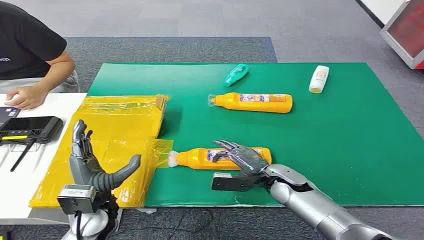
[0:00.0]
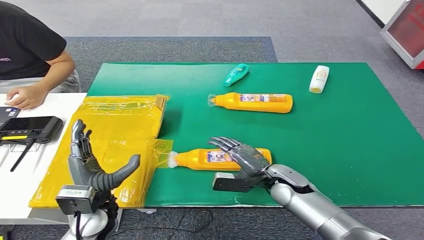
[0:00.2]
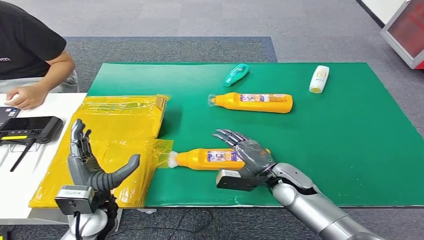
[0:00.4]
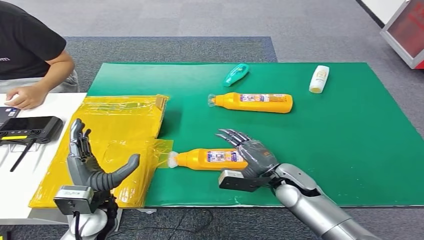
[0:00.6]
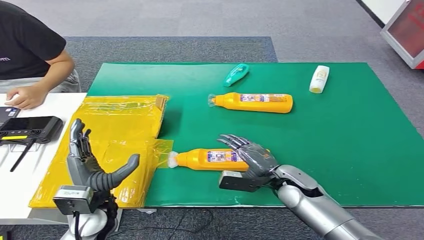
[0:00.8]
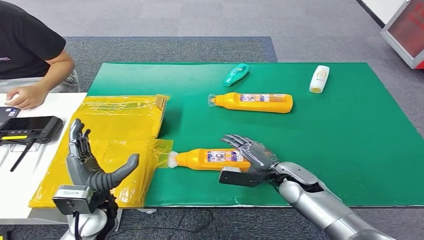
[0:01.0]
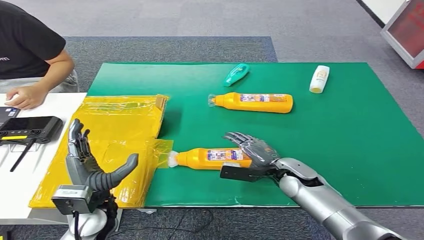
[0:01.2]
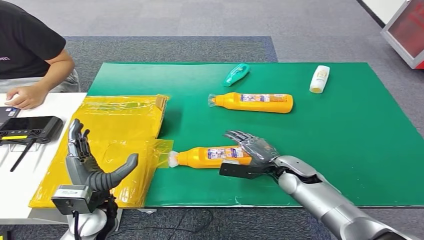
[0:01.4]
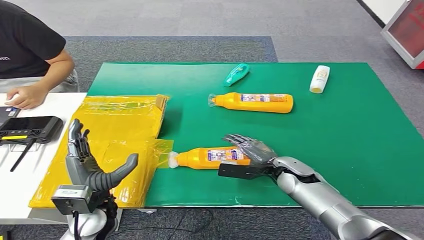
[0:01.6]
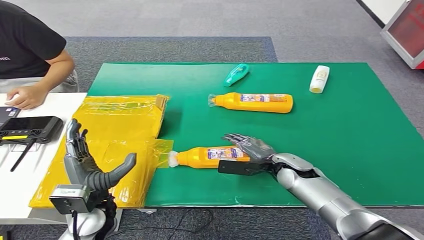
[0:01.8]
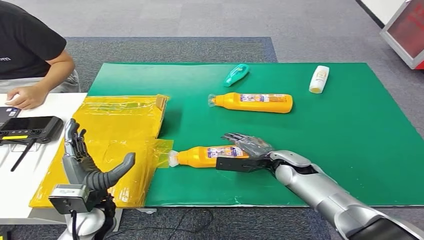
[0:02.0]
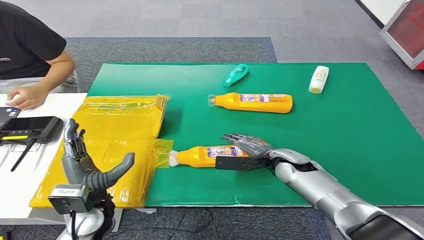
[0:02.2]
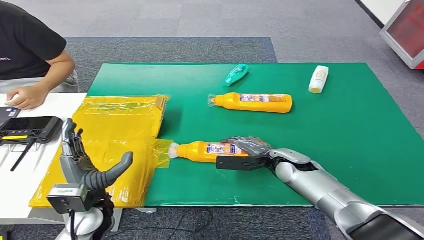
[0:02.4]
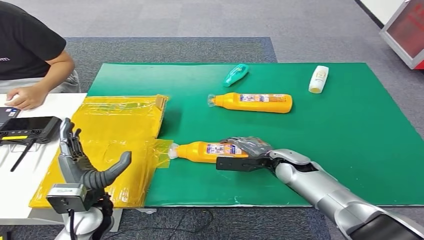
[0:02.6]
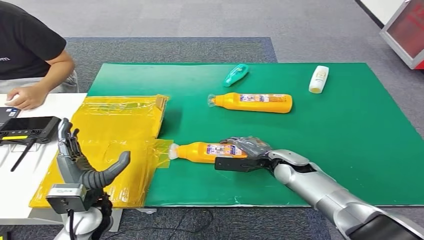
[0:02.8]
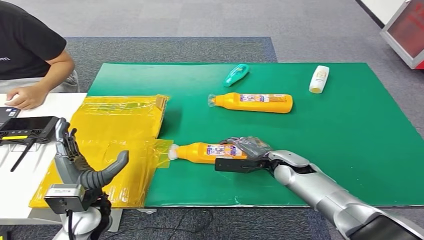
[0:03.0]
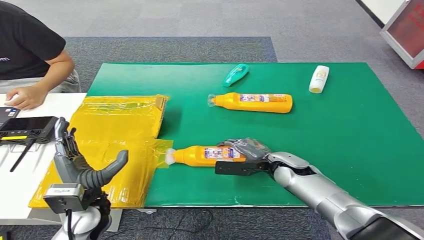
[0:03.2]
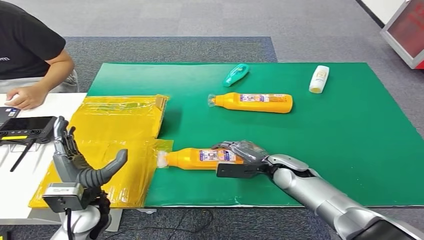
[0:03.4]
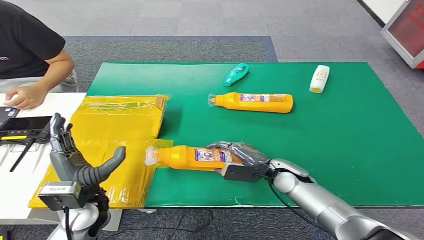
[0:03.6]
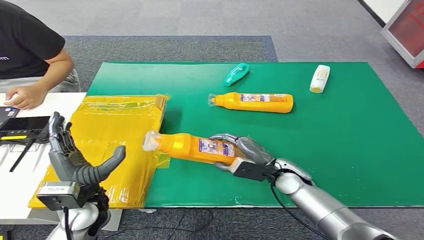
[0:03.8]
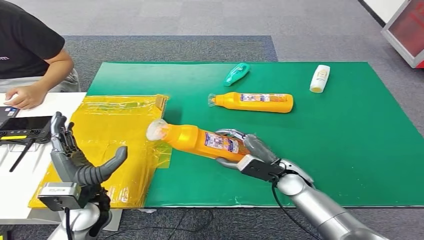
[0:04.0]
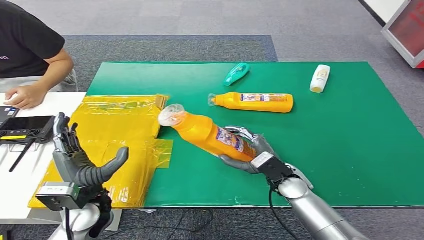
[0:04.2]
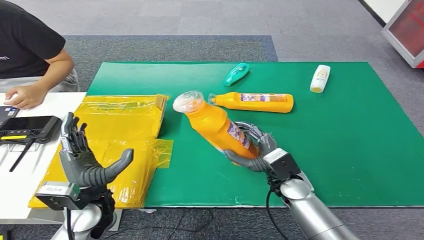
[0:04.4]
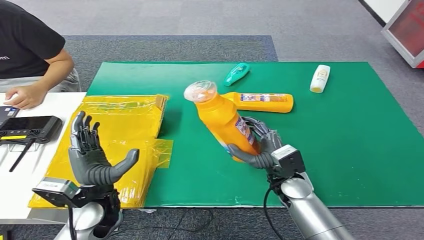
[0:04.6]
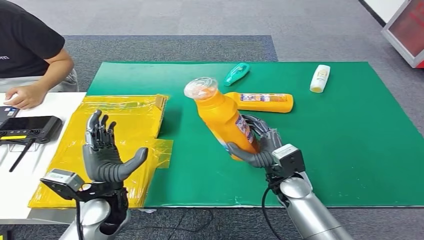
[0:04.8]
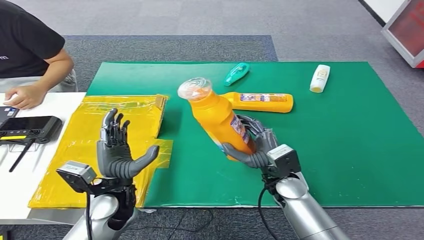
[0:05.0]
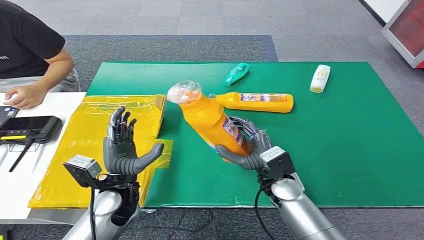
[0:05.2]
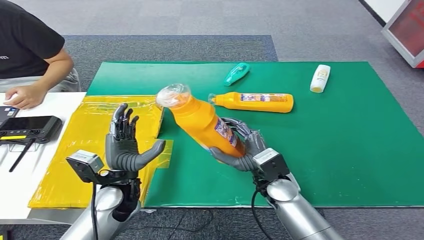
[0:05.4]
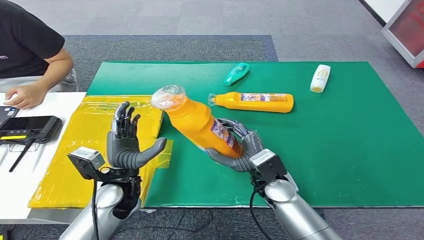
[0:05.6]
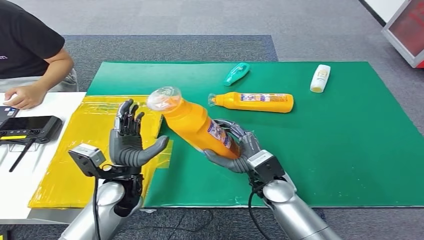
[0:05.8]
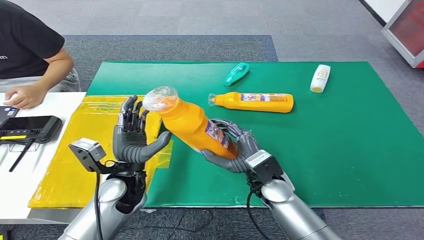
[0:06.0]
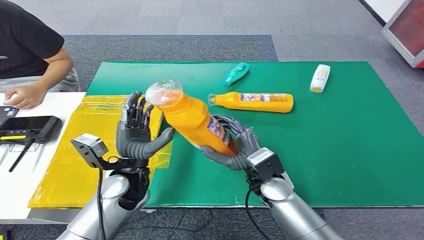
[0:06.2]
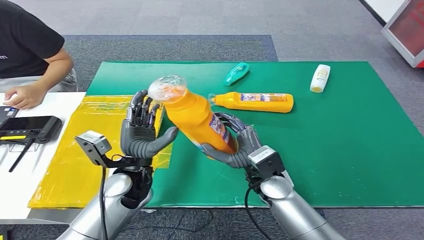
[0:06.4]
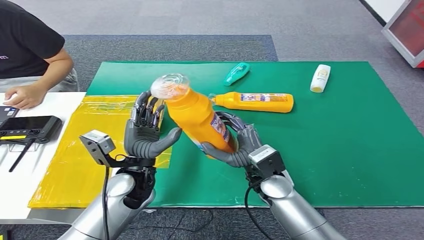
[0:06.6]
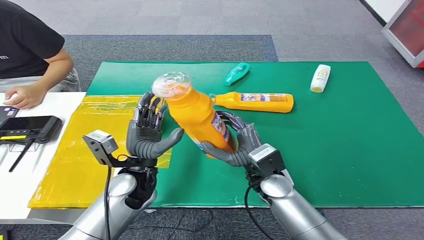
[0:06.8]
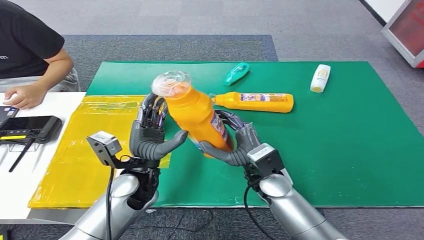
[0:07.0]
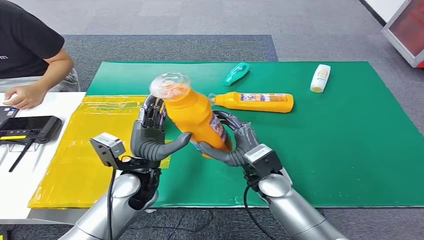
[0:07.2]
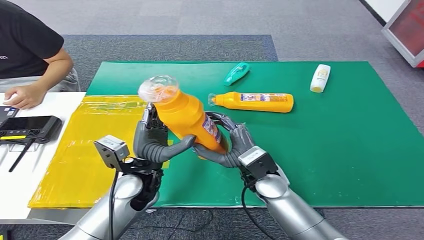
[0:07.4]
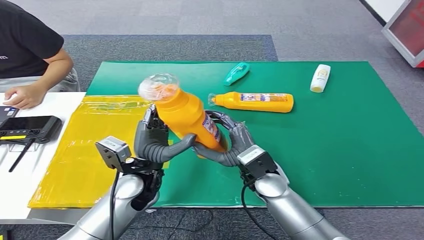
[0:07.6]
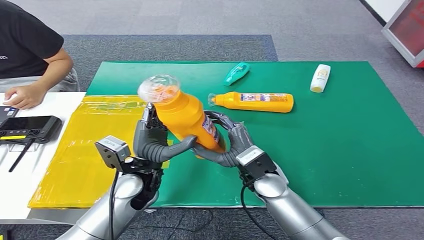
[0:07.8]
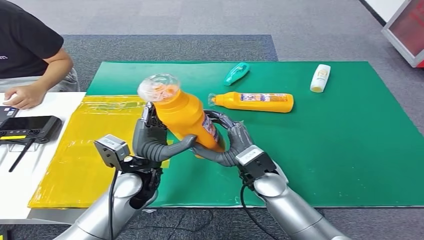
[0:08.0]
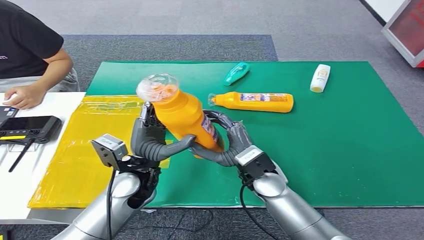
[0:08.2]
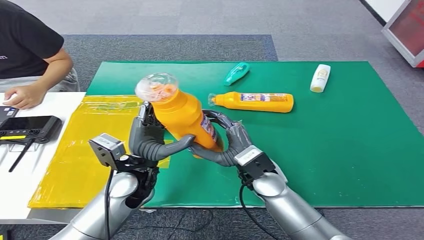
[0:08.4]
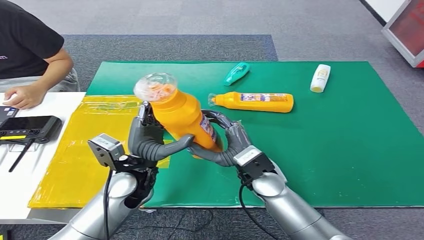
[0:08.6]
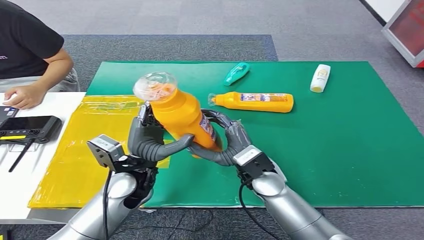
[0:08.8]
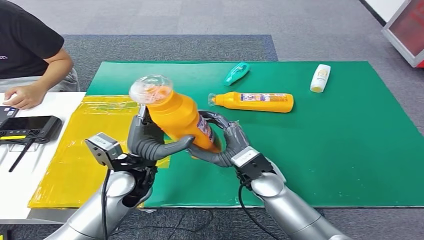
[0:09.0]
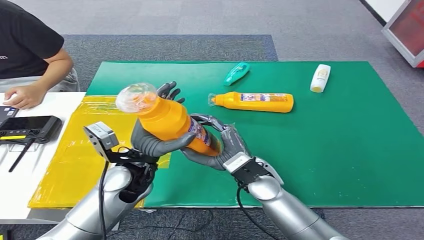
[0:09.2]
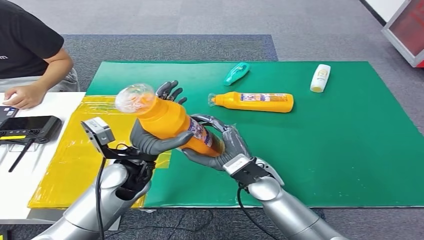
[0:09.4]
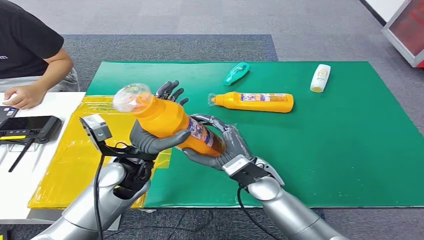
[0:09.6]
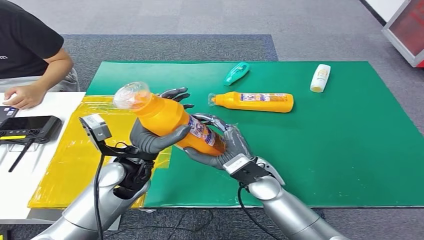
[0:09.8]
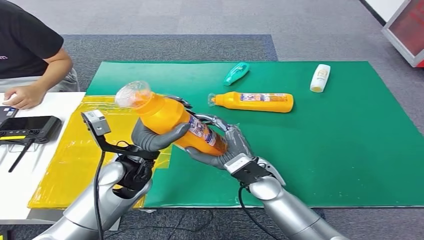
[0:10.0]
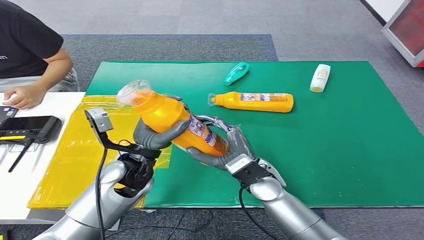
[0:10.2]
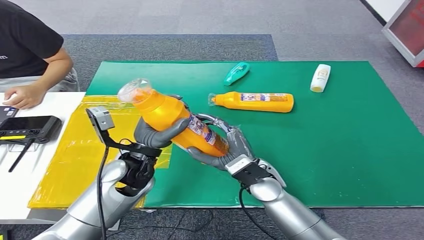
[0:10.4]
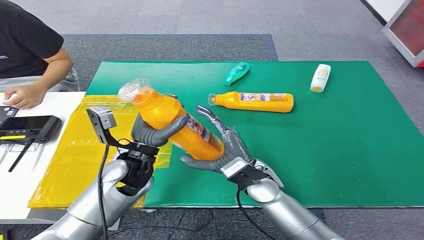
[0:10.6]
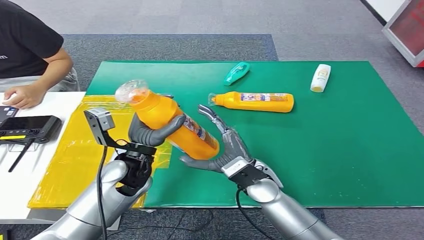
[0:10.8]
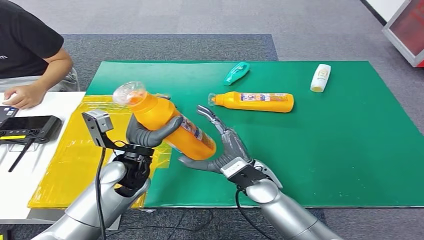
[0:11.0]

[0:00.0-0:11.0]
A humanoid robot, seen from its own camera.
Step, 0:00.0 to 0:05.0: Pick up the bottle from the table.
0:01.6 to 0:03.2: The hands stay close to where they were, moving slightly.
0:06.2 to 0:09.4: There are only small adjustments of the hands.
0:09.4 to 0:11.0: The hands move only a little.

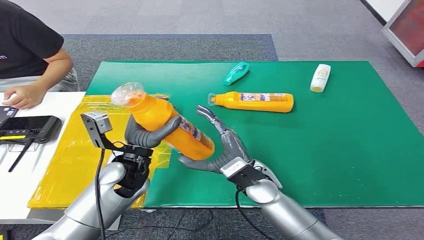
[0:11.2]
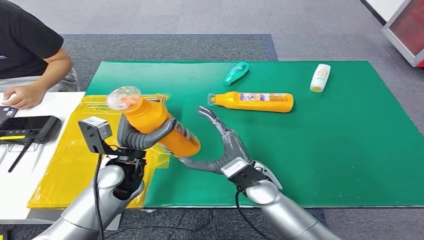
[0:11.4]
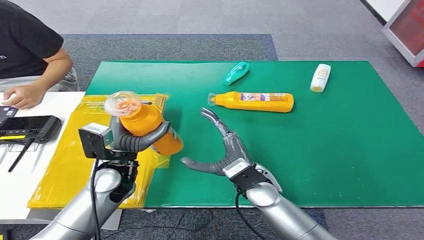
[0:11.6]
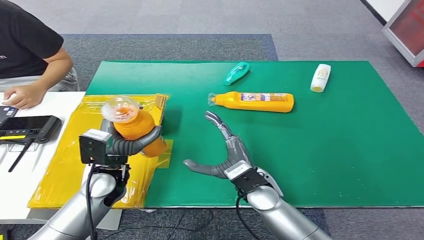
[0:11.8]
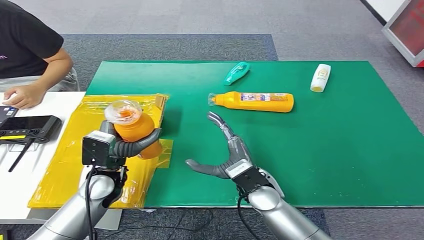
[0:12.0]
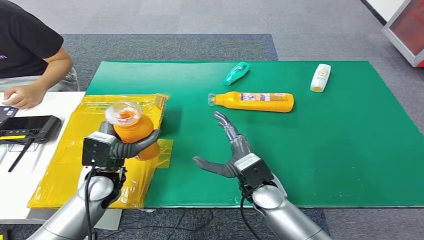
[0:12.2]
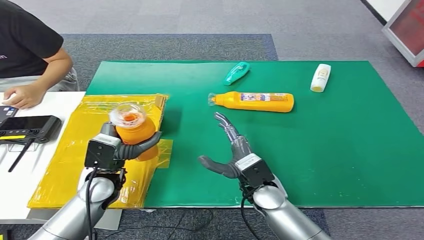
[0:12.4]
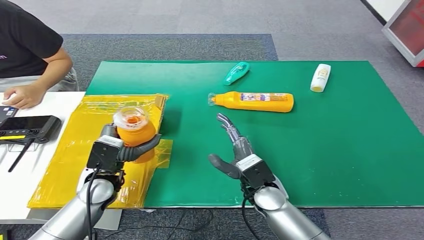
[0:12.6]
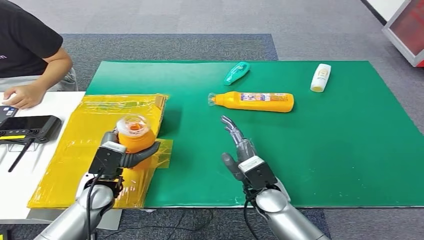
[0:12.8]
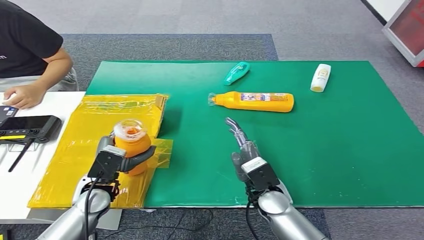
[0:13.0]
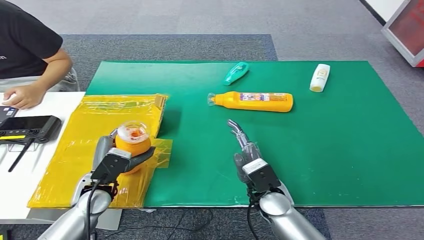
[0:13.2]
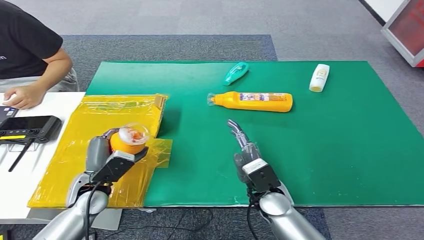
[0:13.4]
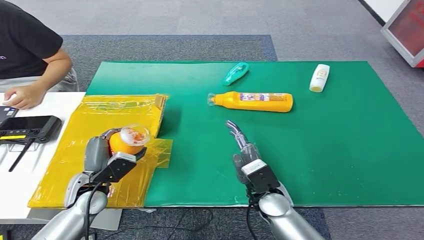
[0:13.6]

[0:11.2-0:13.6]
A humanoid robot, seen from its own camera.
Step, 0:11.2 to 0:13.6: Turn the bottle to the front side.
0:11.2 to 0:12.4: The left hand goes about 5 cm to the left.
0:12.4 to 0:13.6: The left hand is displaced to the left by about 5 cm.
